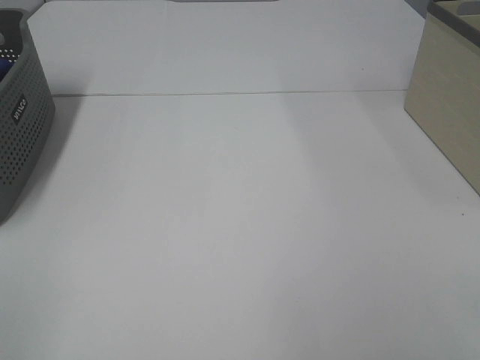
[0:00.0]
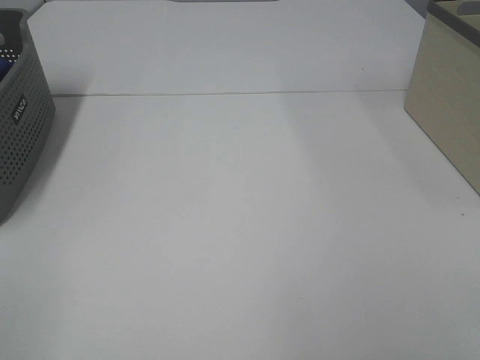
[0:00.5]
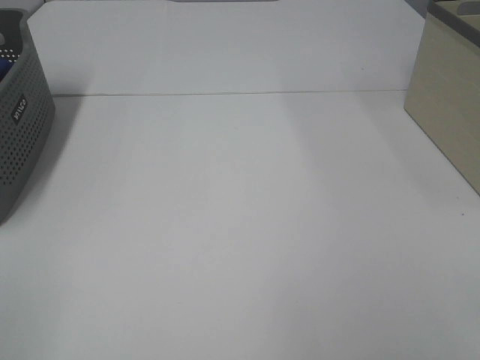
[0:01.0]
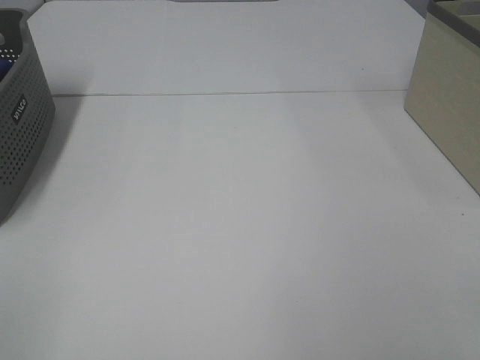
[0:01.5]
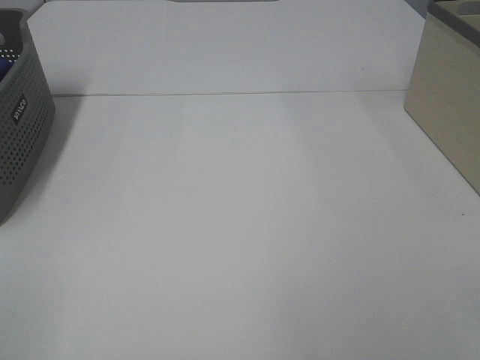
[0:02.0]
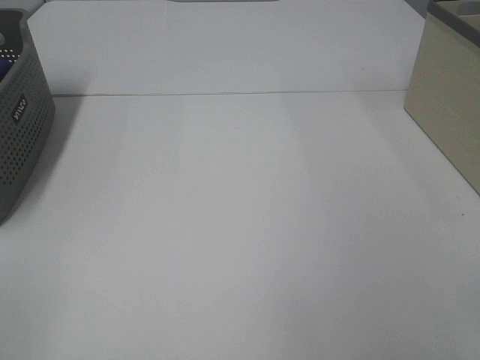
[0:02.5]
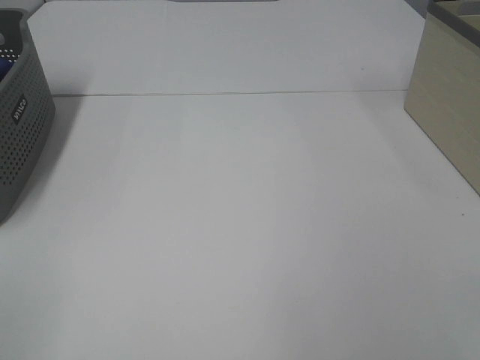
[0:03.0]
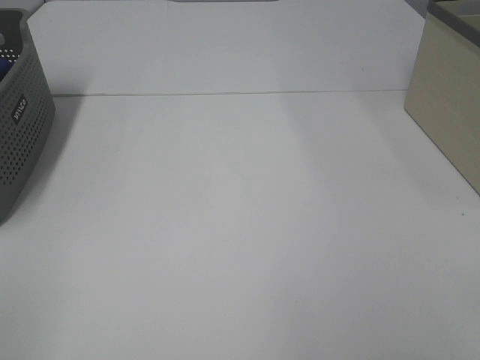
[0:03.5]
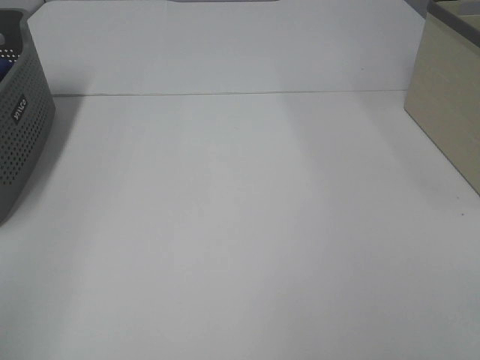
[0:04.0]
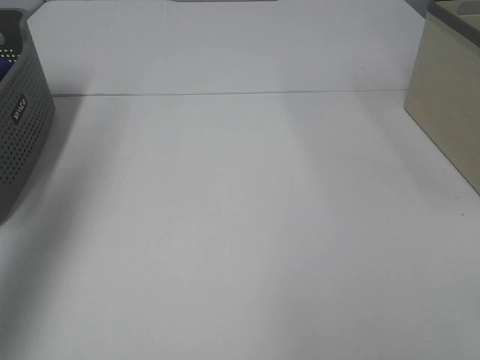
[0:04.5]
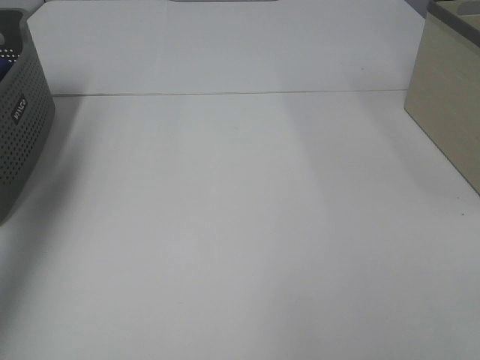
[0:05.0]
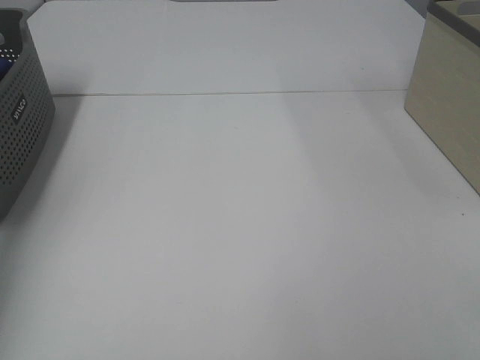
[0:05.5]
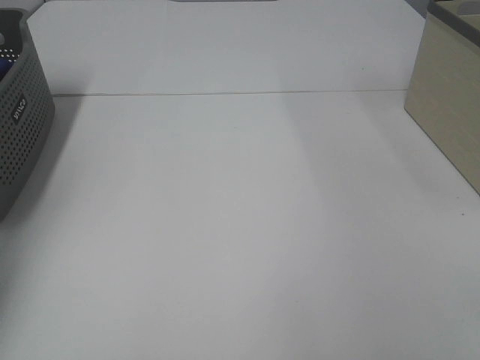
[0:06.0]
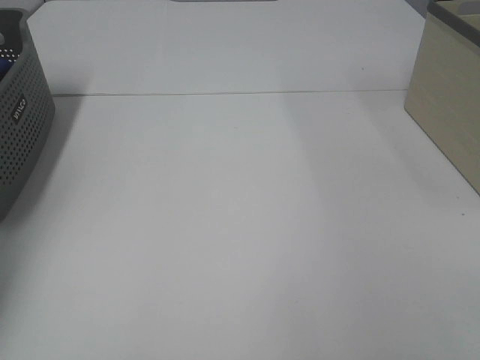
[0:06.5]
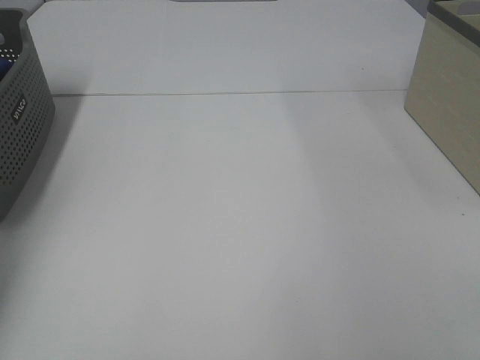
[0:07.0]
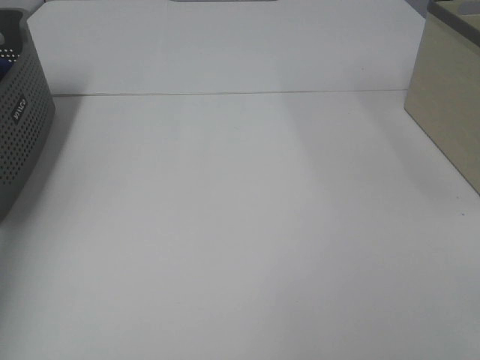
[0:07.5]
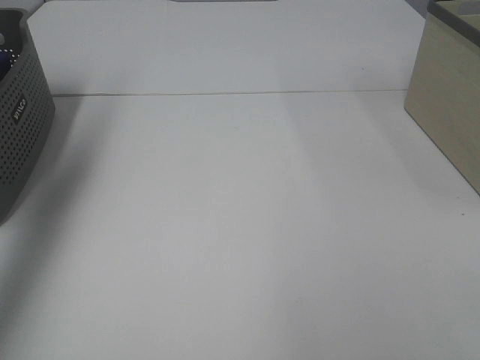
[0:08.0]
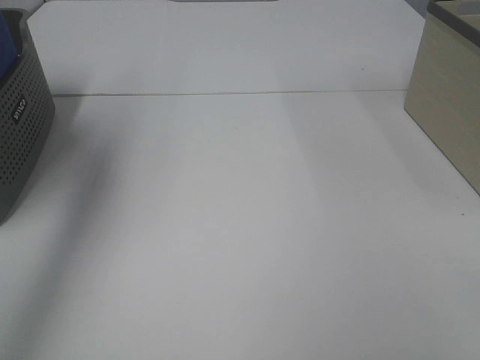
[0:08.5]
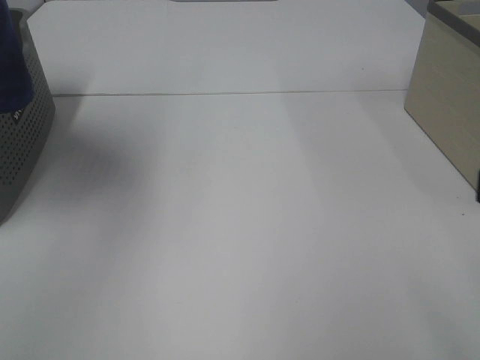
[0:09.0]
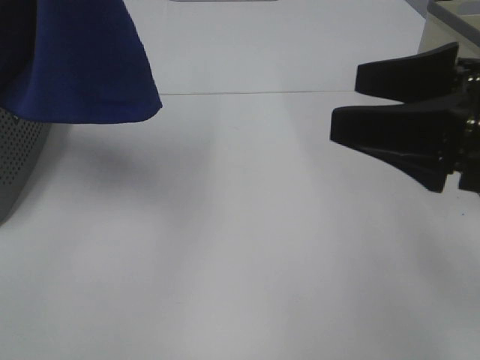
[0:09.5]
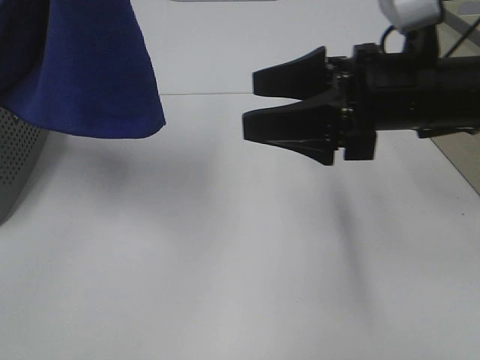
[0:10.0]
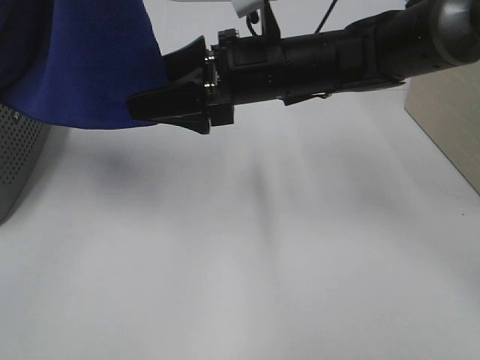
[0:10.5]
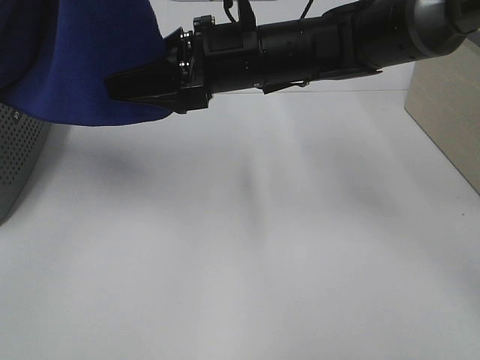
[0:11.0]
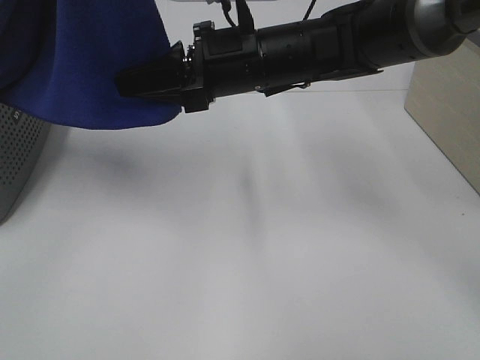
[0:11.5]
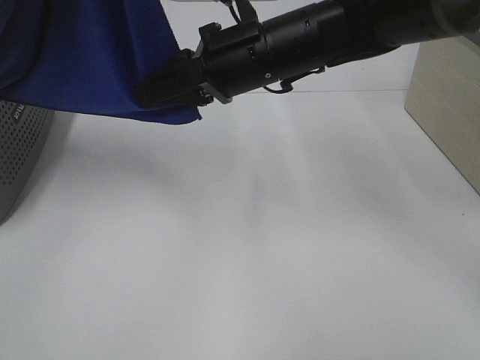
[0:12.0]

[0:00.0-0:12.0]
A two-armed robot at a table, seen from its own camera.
Task of the whole recording: Remove the towel and place it.
Step, 0:08.5 to 0:11.0: Right hand: grab a corner of the blue towel and straighten it.
0:00.0 to 0:02.0: The two grippers keep their place.
0:04.0 to 0:06.0: The left gripper travels forward by about 40 cm.
0:06.0 to 0:08.0: The left gripper goes roughly 25 cm upward, and closes.
0:08.0 to 0:10.0: The right gripper travels forward and to the left by some 30 cm, while the left gripper heads to the right and backward, covering about 25 cm.
0:10.0 to 0:12.0: The right gripper moves to the left and forward, about 15 cm, and closes.

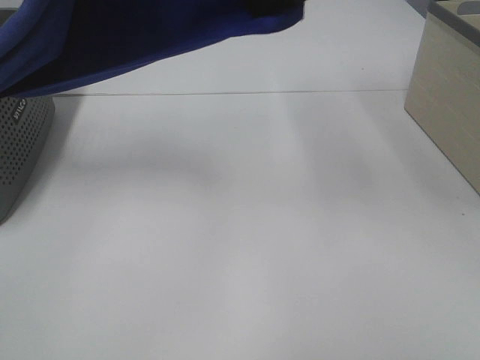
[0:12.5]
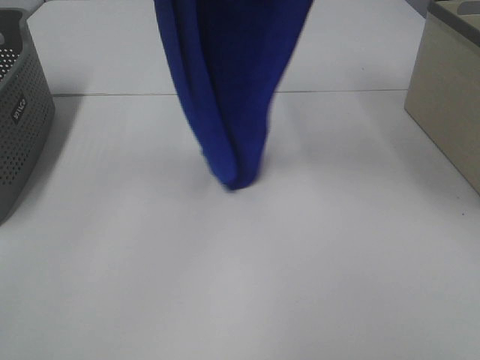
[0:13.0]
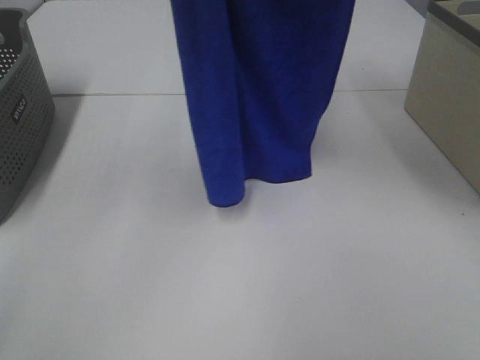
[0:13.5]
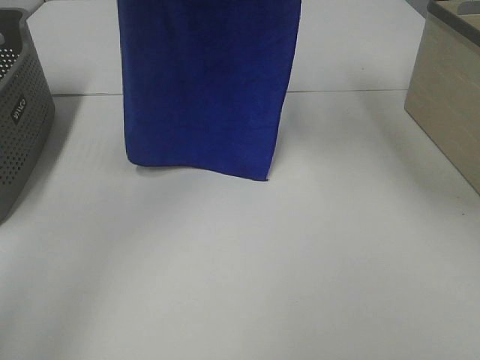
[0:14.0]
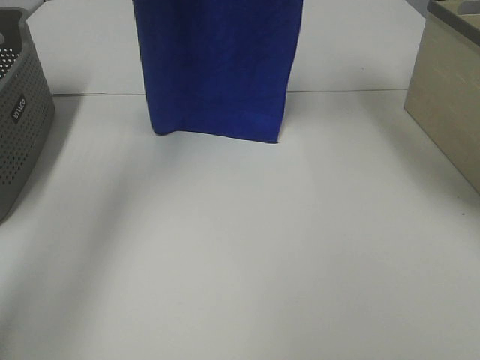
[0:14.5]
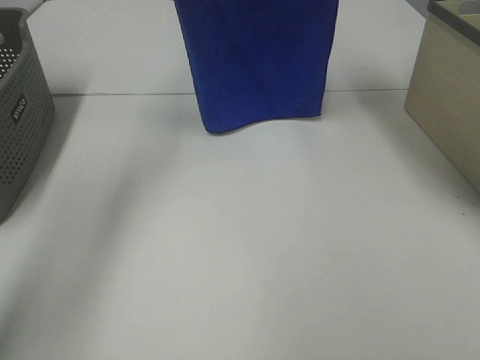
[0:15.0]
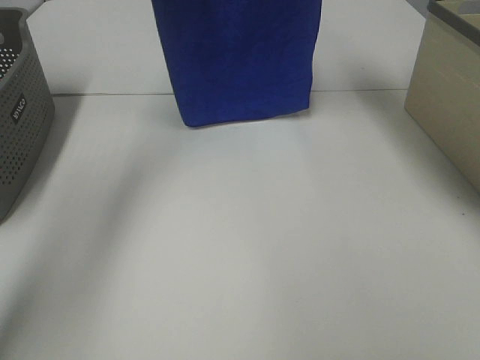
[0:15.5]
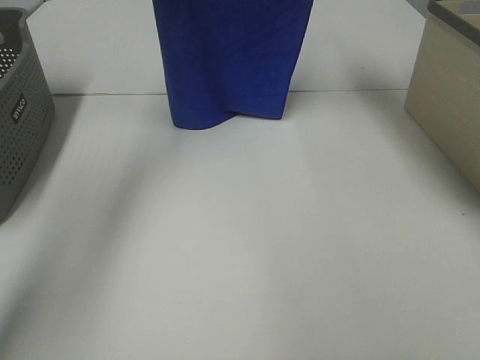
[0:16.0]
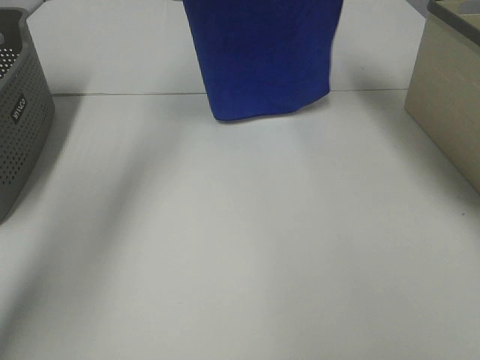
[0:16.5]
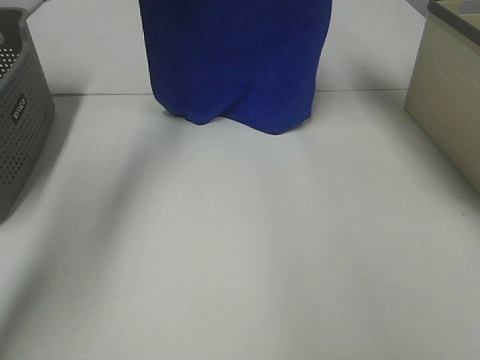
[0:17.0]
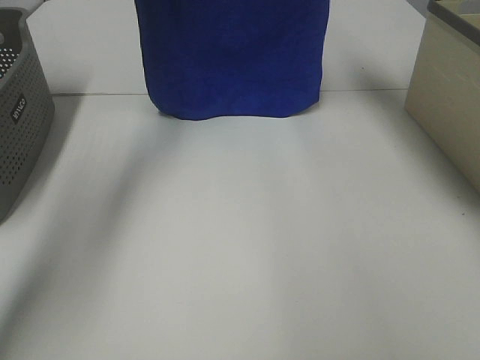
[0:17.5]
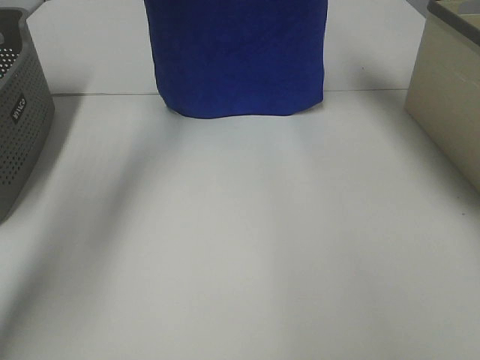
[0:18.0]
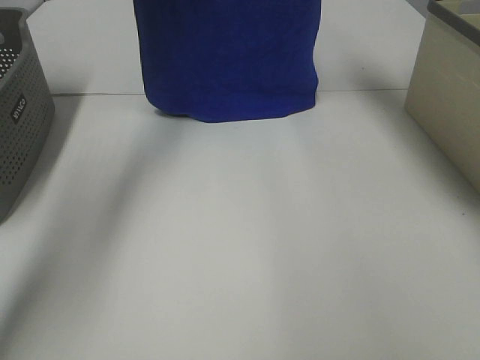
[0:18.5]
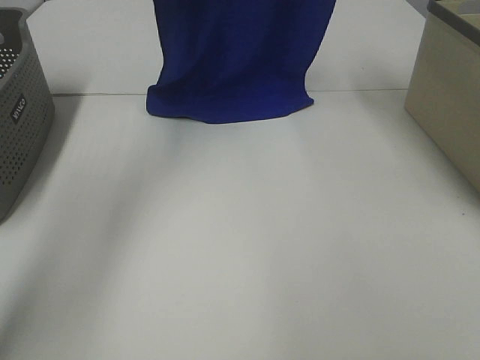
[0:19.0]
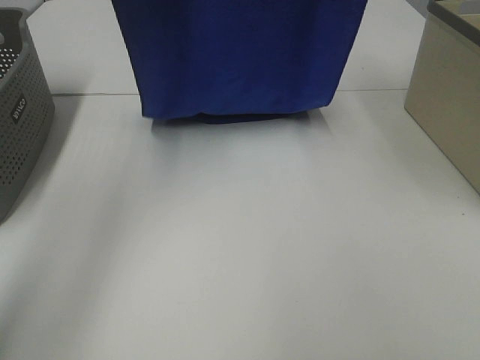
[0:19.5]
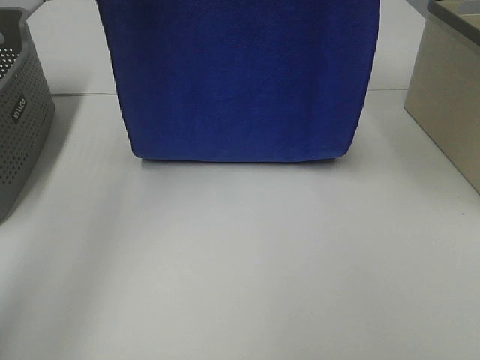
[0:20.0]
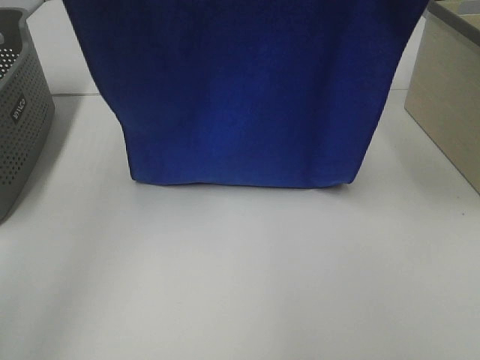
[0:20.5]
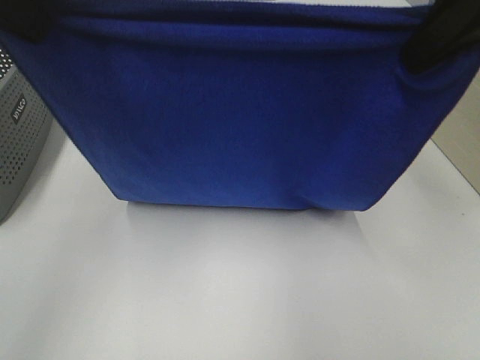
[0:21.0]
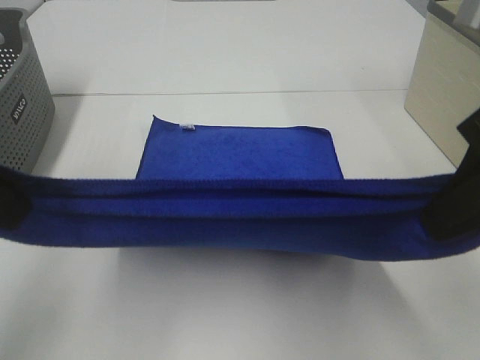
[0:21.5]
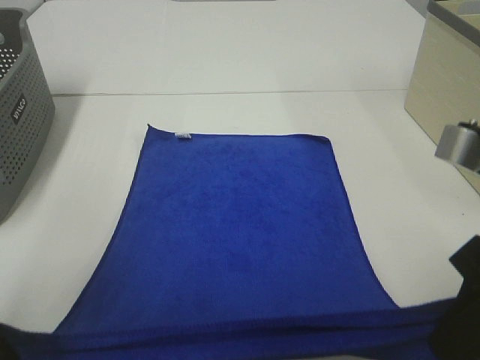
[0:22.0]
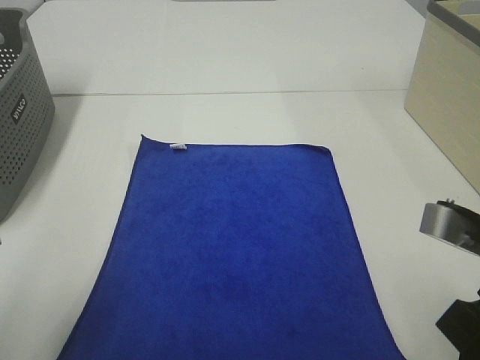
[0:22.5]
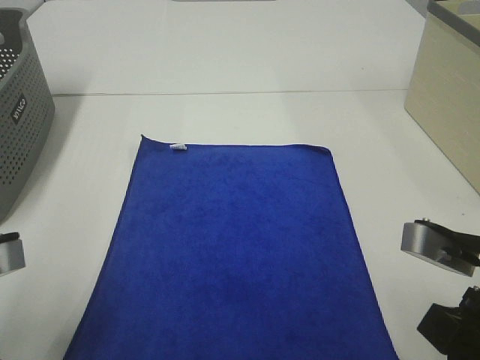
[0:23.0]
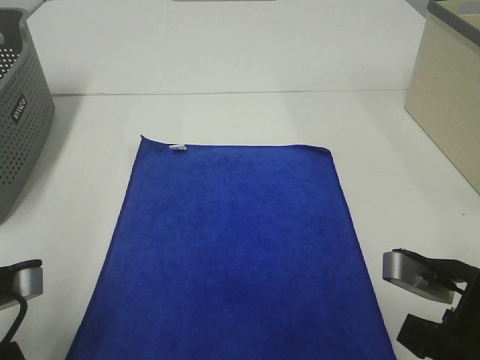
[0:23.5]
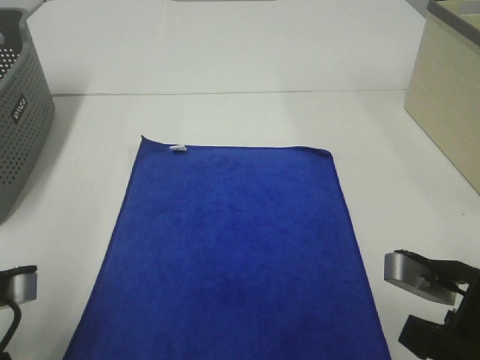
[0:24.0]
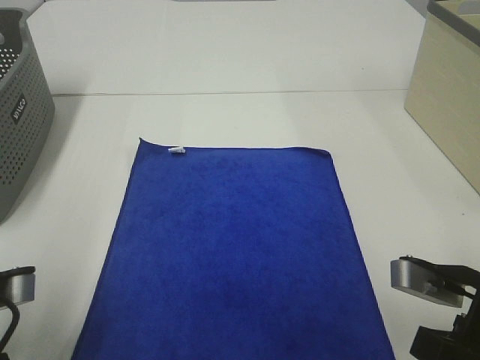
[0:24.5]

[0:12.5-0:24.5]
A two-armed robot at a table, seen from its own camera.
Task of the whole recording: Remove the towel and place it.
Step, 0:12.5 to 0:20.0: Left hand: spread the blue towel flat on the table.
Step, 0:12.5 to 0:20.0: Right hand: spread the blue towel flat on the table.
0:12.5 to 0:14.5: The right gripper moves forward and upward, approximately 15 cm, while the left gripper shifts roughly 20 cm forward.
0:14.5 to 0:16.5: The left gripper ends up roughly 5 cm from where it was, while the right gripper shifts by some 5 cm.
0:16.5 to 0:18.5: There are only small adjustments of the grippers.
0:18.5 to 0:20.5: The grippers both shift backward by roughly 20 cm.
0:20.5 to 0:22.5: Both grippers travel together downward and backward, some 30 cm.
0:22.5 to 0:24.5: Both grippers move downward, roughly 5 cm.

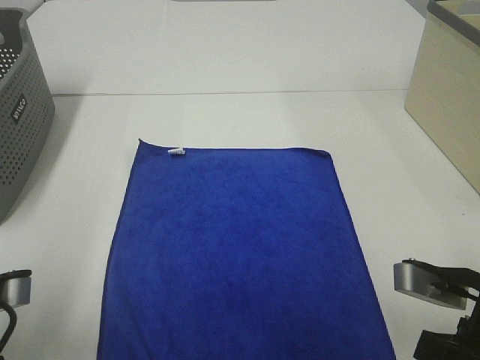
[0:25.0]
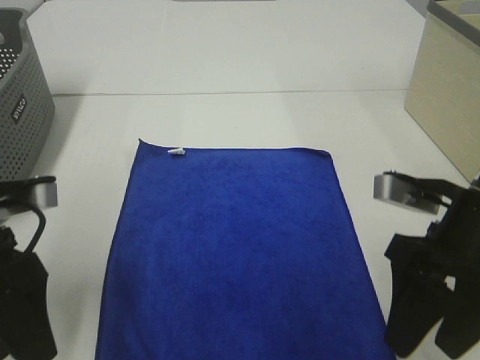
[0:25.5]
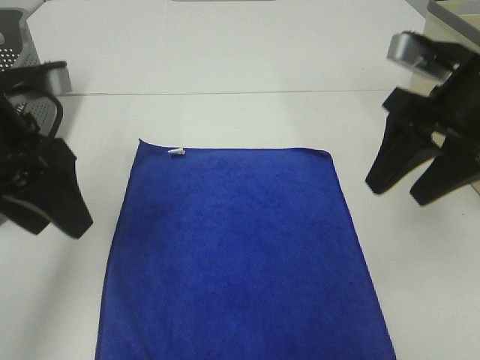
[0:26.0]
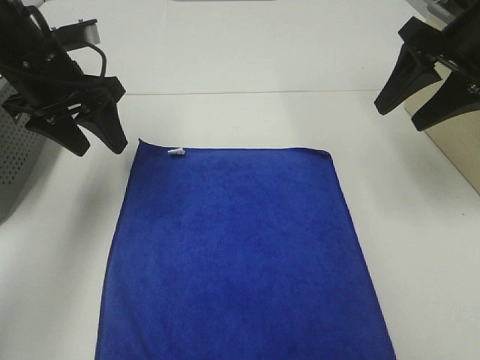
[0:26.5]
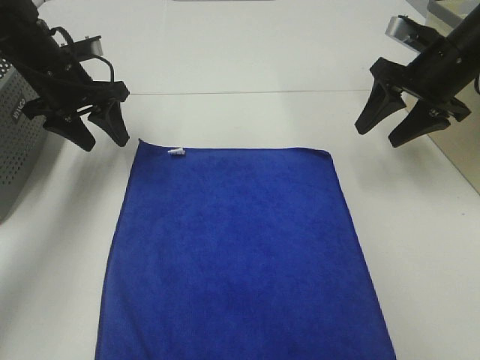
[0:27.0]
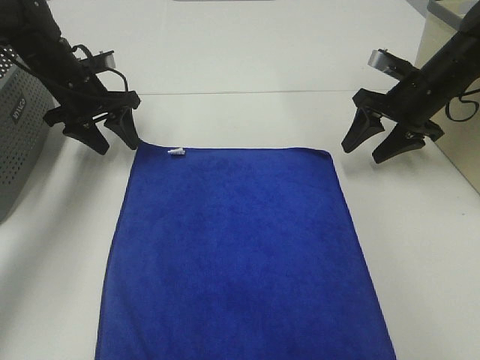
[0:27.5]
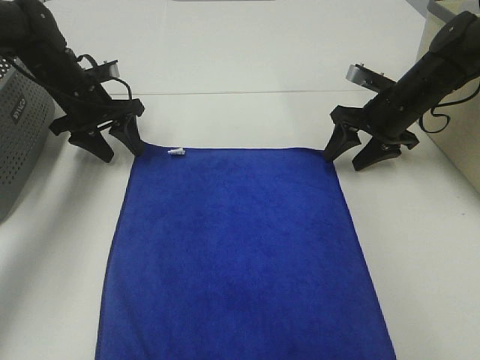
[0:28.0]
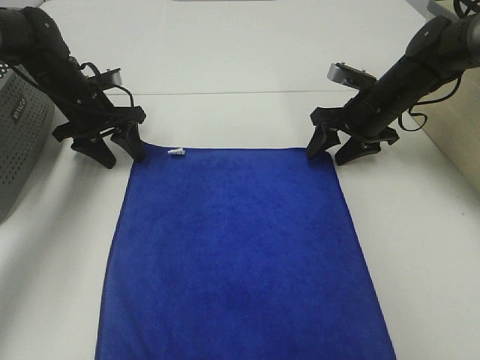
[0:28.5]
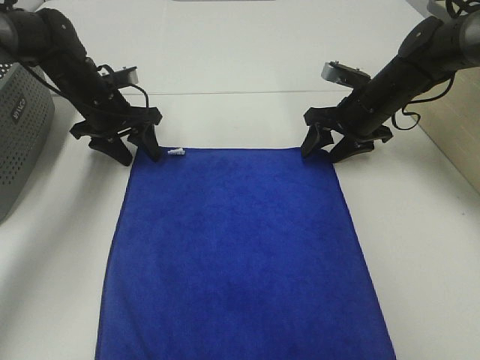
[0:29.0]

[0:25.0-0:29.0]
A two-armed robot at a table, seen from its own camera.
Task of the whole recording: Remove the towel and place it.
Step, 0:25.0 to 0:27.0: Left hand:adjust the blue towel.
Step, 0:25.0 to 0:27.0: Right hand:adjust the blue towel.
0:25.0 to 0:27.0: The grippers both shift forward by roughly 30 cm.
0:27.0 to 0:29.0: The right gripper goes about 10 cm downward and to the left. The left gripper shifts some 5 cm downward.
